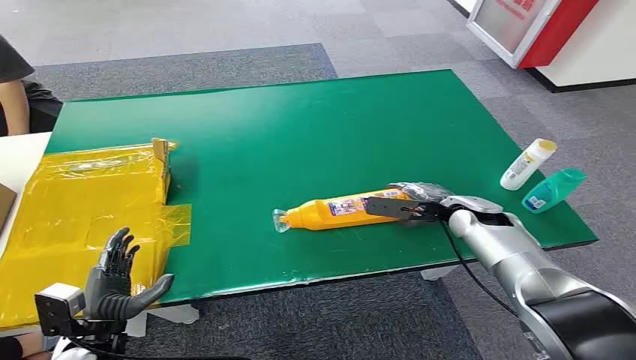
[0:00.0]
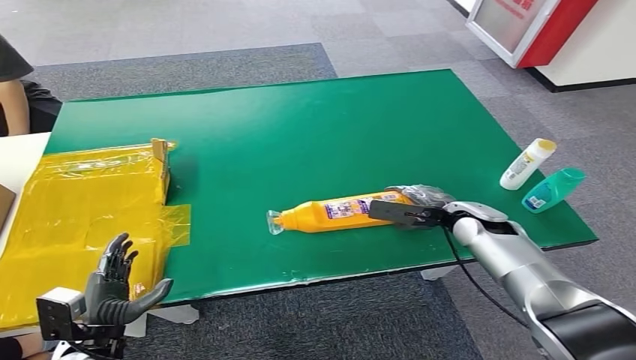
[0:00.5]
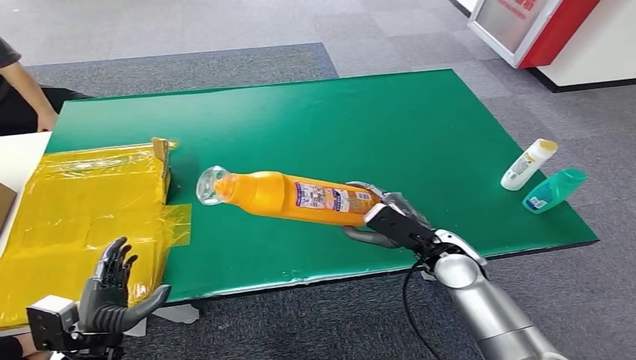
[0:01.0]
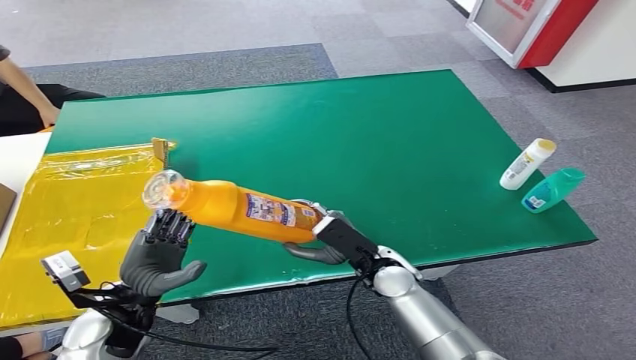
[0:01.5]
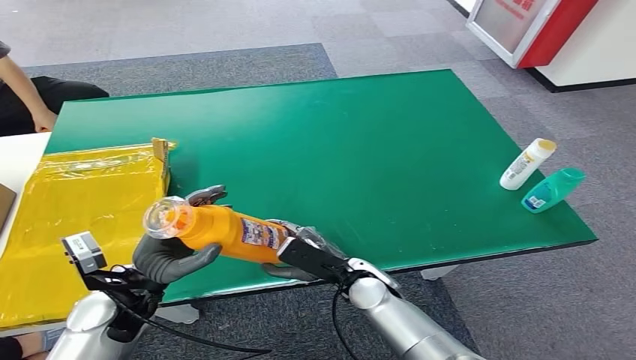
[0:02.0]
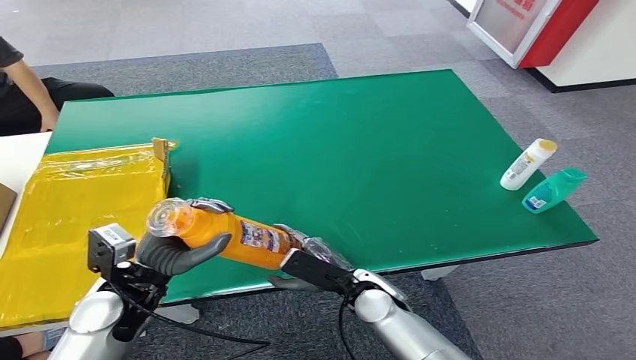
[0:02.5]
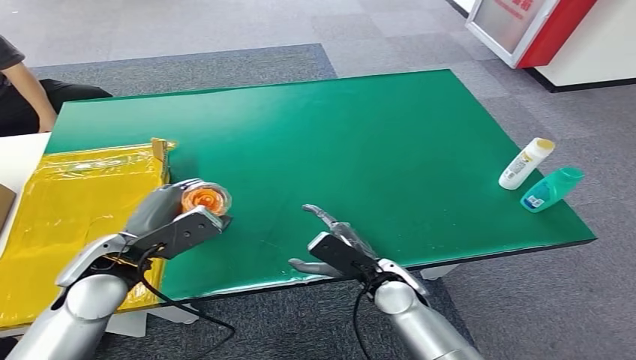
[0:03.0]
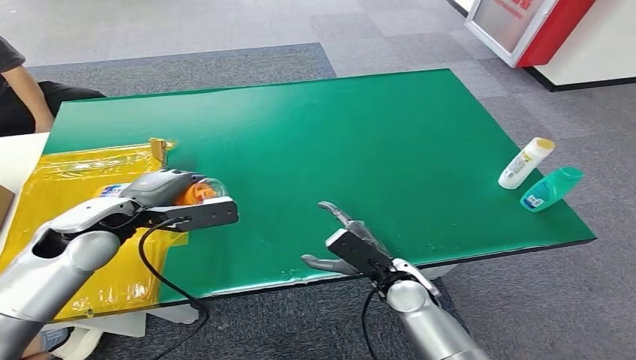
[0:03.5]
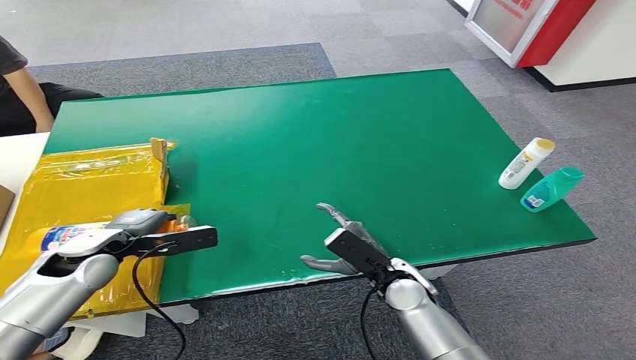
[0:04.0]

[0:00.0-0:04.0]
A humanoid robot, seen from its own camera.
Step, 0:00.0 to 0:01.0: Pick up the bottle from the table.
Step, 0:01.5 to 0:04.0: Turn the bottle to the front side.
0:02.0 to 0:04.0: The left hand shifts roughly 10 cm forward and to the left, and goes upward and returns, about 10 cm each way. The right hand goes roughly 5 cm to the right.

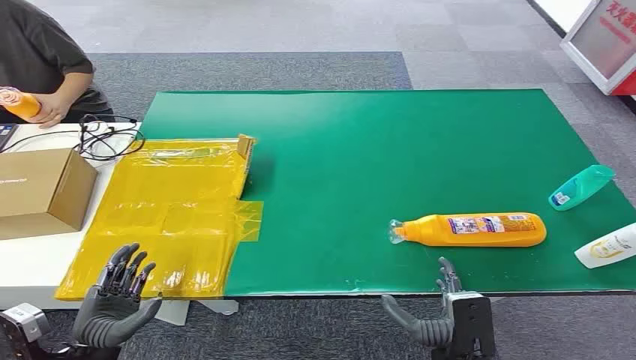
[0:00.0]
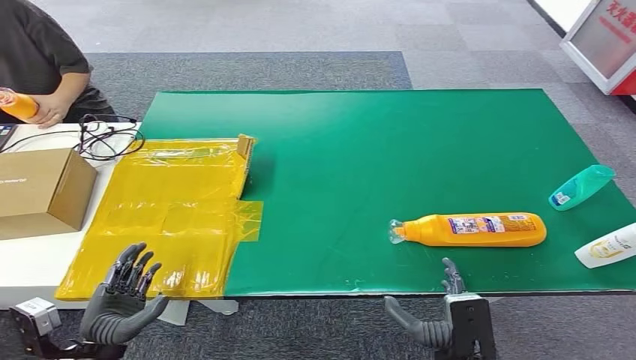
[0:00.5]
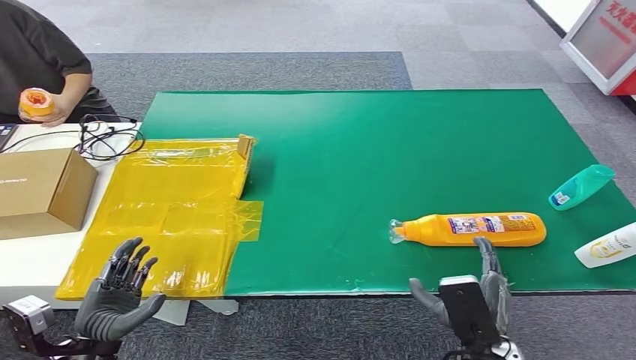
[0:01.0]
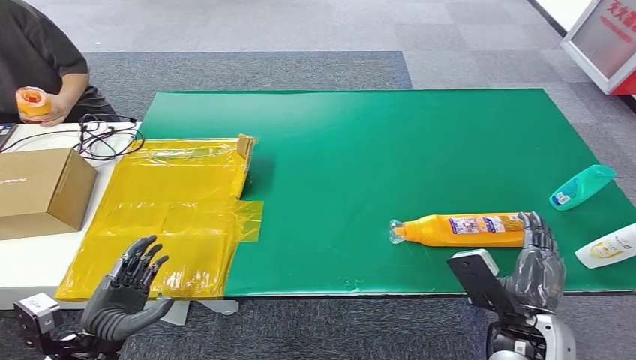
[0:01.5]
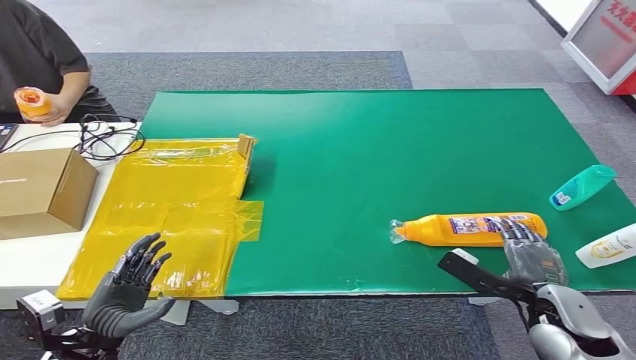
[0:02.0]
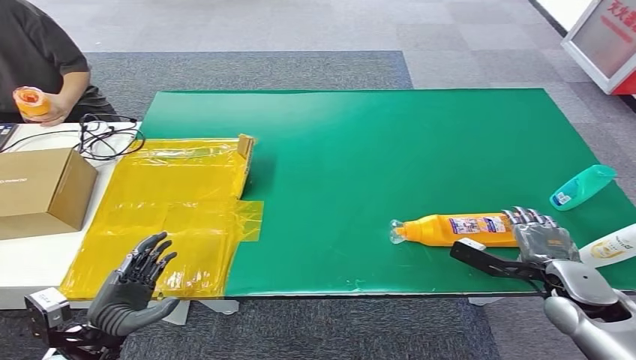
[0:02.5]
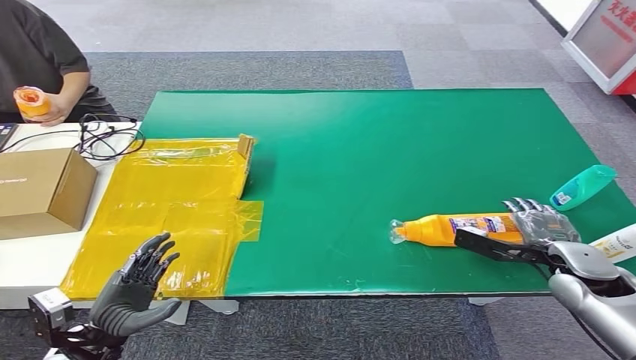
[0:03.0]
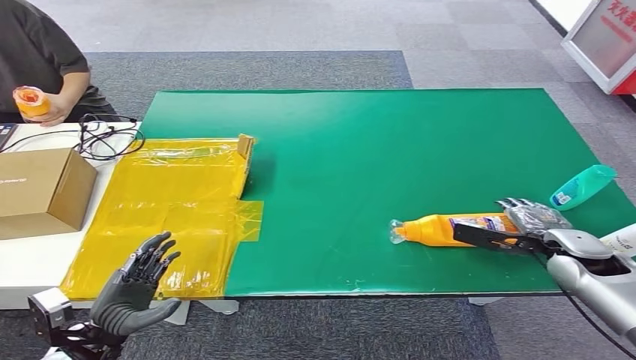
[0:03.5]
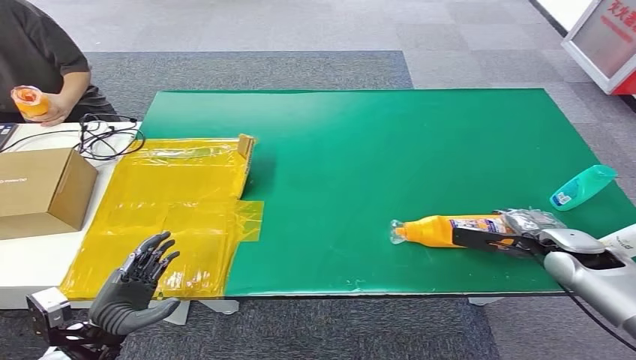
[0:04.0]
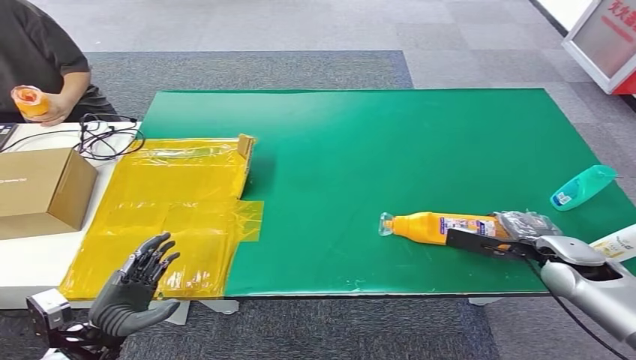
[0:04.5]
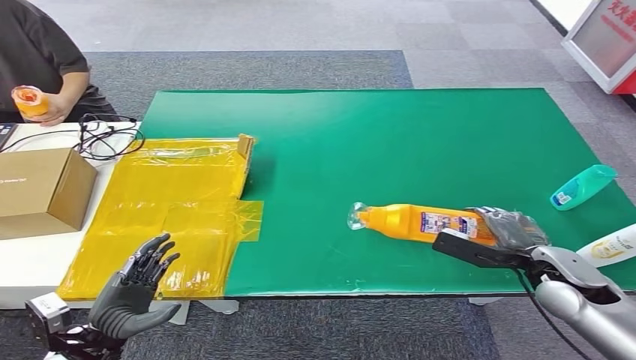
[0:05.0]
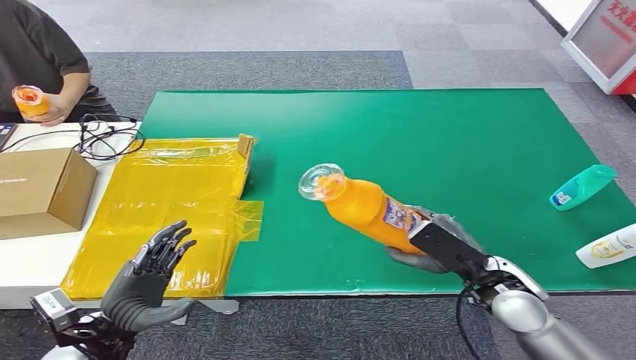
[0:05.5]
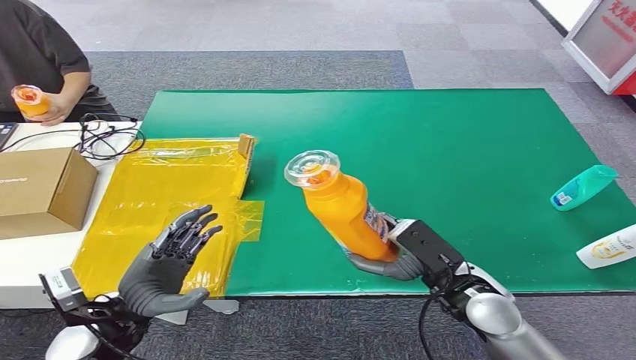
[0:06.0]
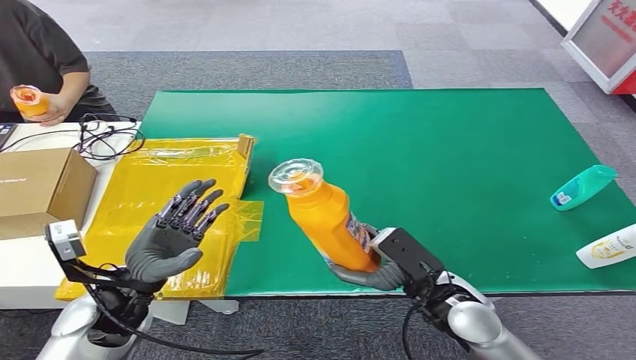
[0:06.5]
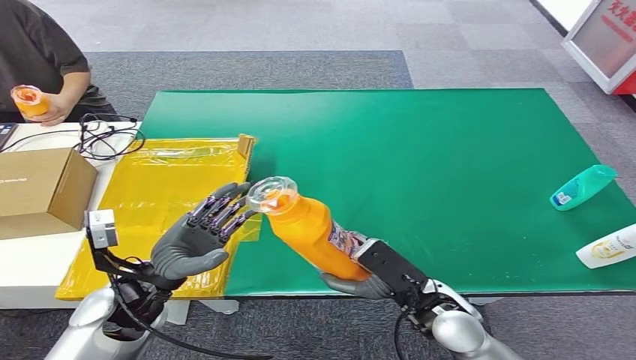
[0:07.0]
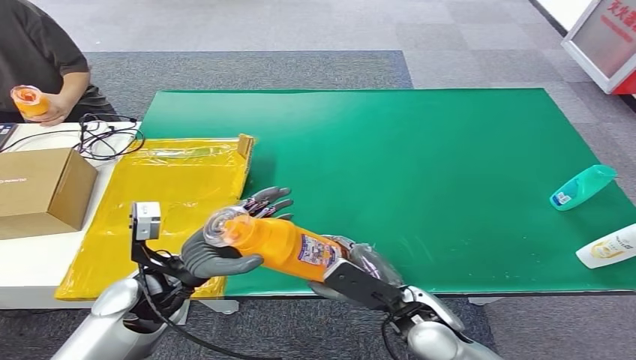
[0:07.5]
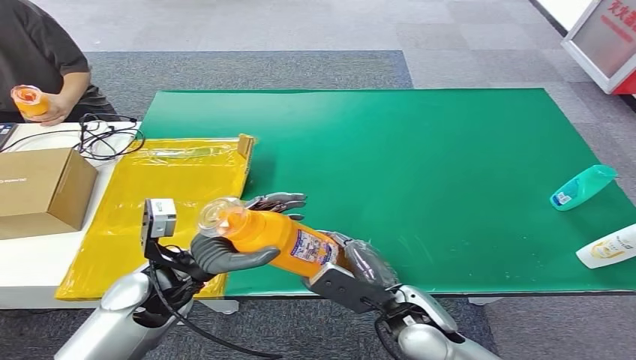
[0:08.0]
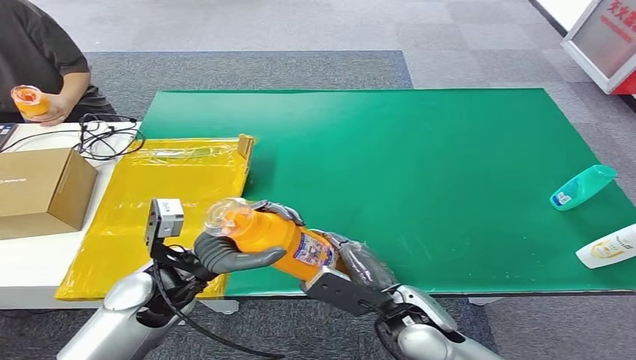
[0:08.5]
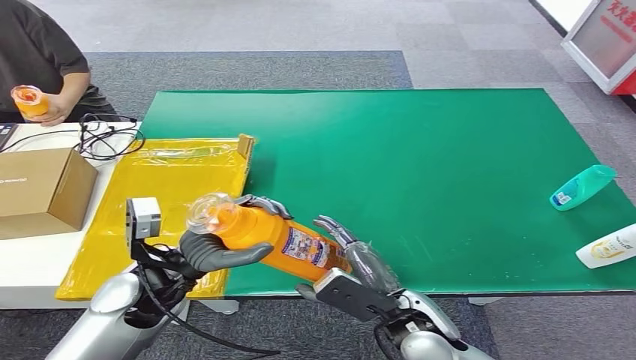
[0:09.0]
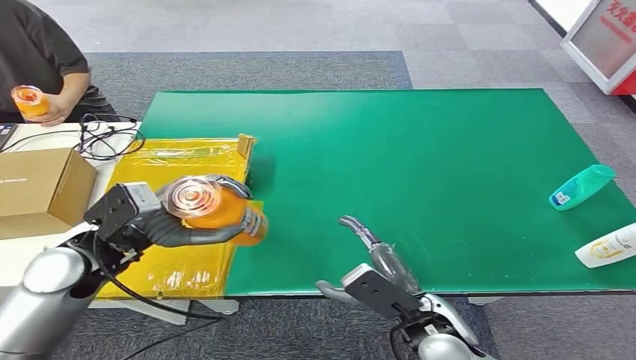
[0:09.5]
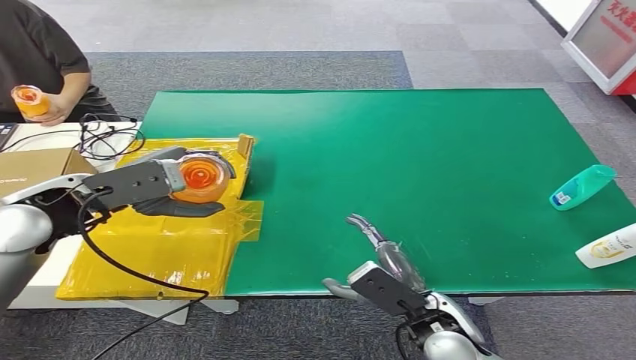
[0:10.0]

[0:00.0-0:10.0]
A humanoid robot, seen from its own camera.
Step, 0:00.0 to 0:06.0: Pick up the bottle from the table.
0:02.0 to 0:04.0: The right hand goes approximately 15 cm forward.
0:04.0 to 0:06.0: The right hand heads to the left and backward, covering roughly 20 cm. The left hand moves forward and upward, about 10 cm.
0:06.0 to 0:08.0: The right hand travels to the left by roughly 10 cm, while the left hand heads forward and to the right, covering about 10 cm.
0:08.0 to 0:10.0: The left hand is displaced upward, to the left and forward by roughly 20 cm.

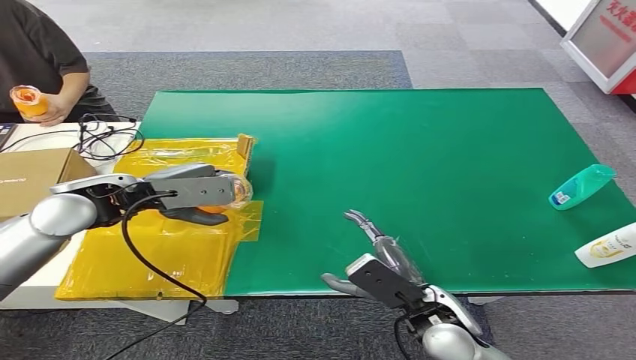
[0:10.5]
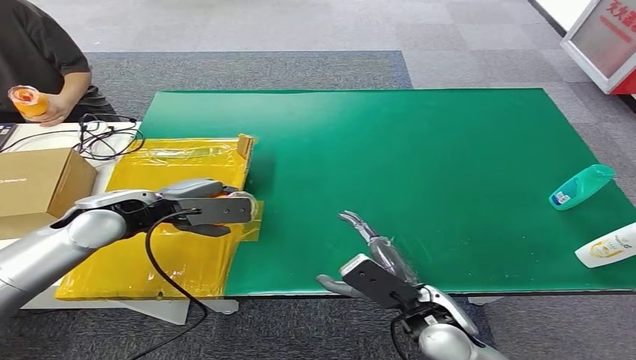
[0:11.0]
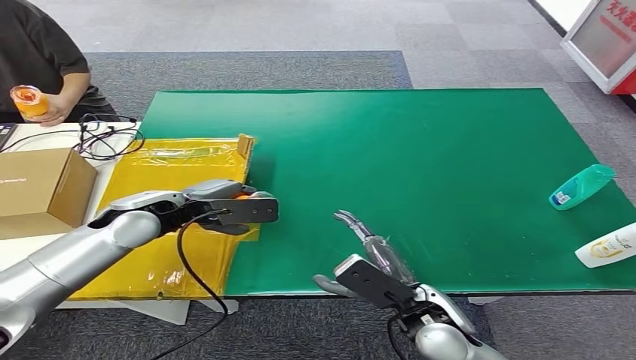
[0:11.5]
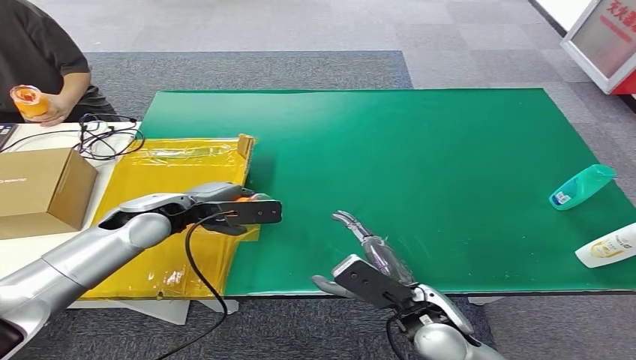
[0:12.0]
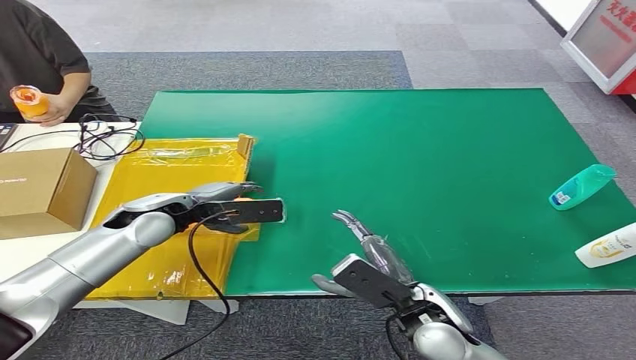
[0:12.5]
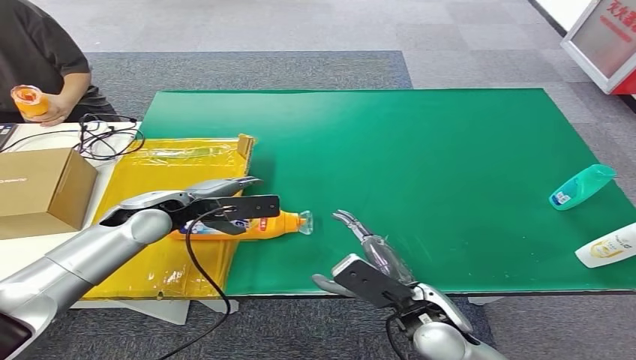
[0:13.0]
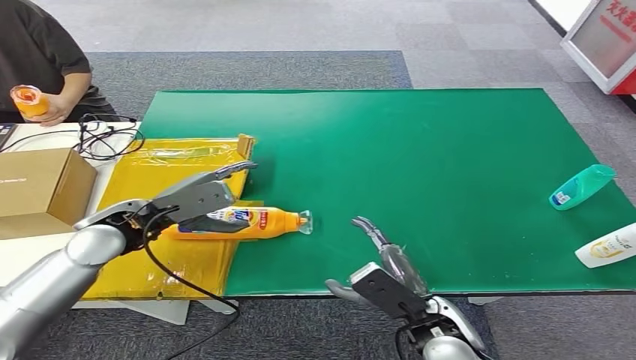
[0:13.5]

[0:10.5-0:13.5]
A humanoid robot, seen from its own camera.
Step, 0:10.5 to 0:13.5: Turn the bottle to the front side.
0:10.5 to 0:12.0: The left hand shifts about 10 cm downward and to the right.
0:12.0 to 0:13.5: The left hand changes place by roughly 5 cm.
